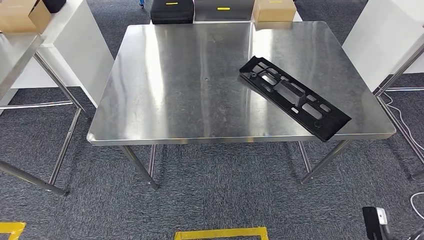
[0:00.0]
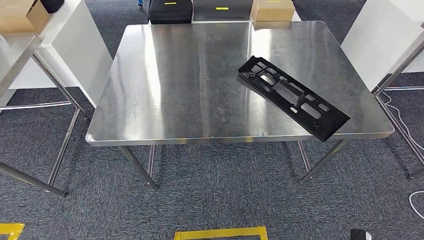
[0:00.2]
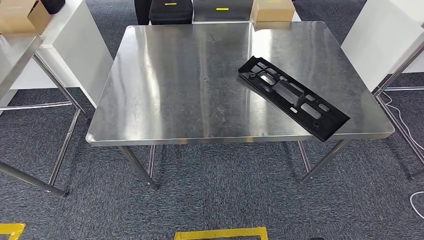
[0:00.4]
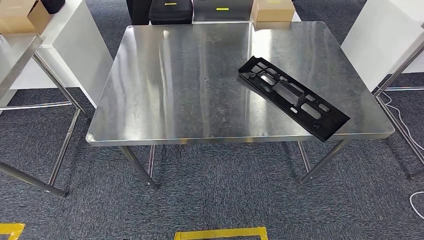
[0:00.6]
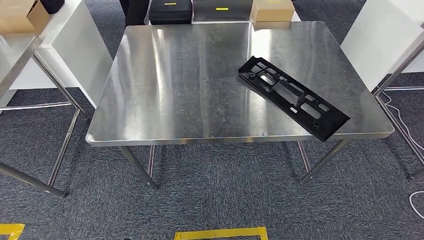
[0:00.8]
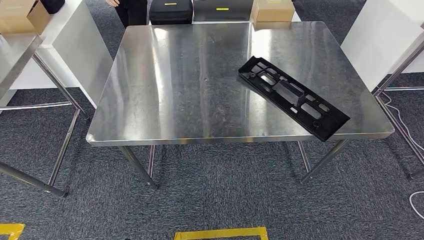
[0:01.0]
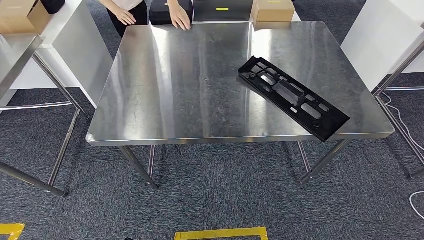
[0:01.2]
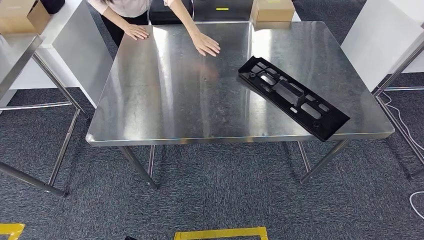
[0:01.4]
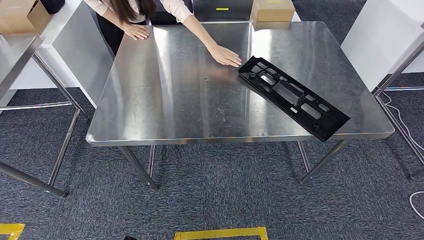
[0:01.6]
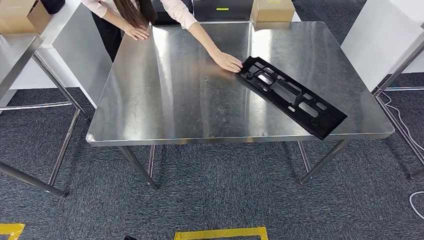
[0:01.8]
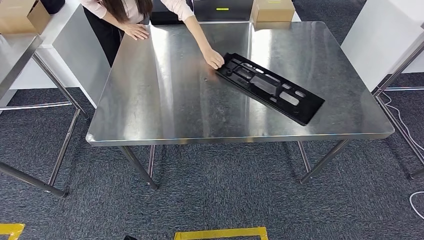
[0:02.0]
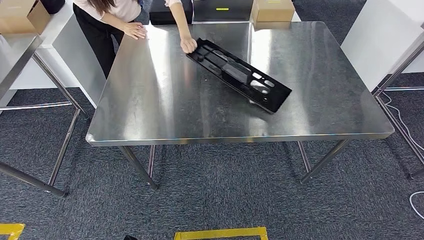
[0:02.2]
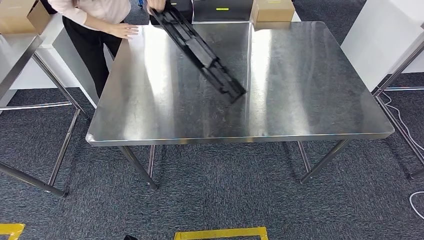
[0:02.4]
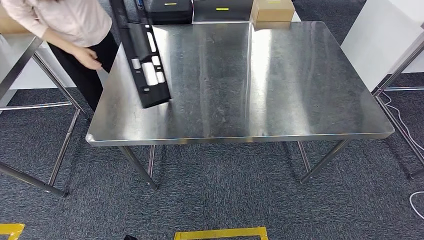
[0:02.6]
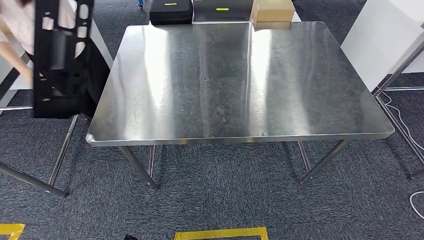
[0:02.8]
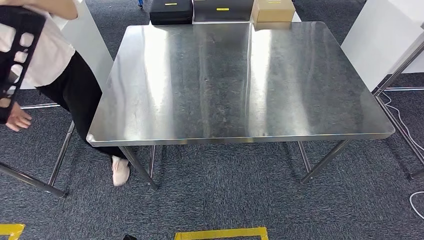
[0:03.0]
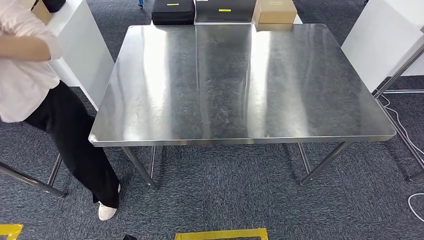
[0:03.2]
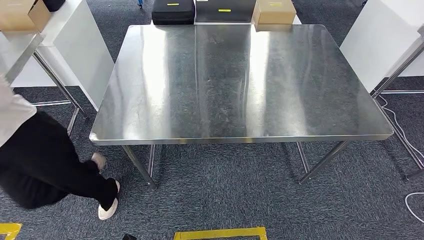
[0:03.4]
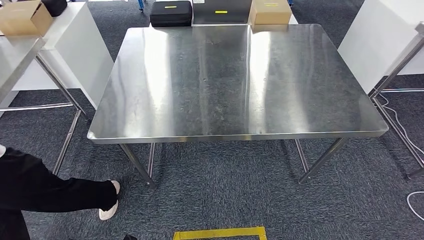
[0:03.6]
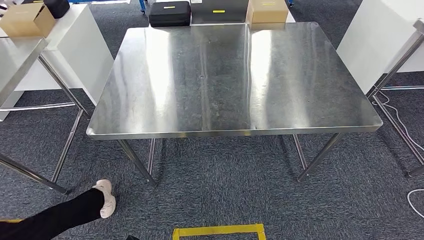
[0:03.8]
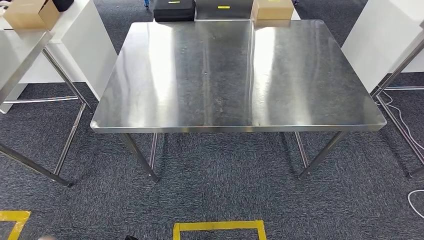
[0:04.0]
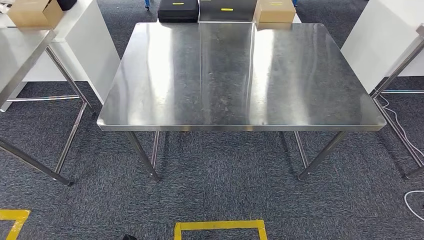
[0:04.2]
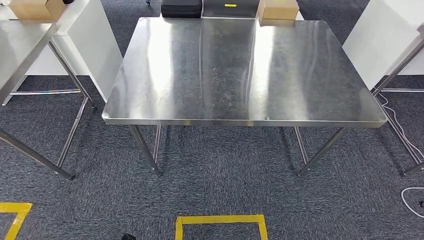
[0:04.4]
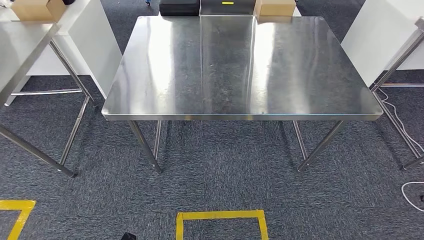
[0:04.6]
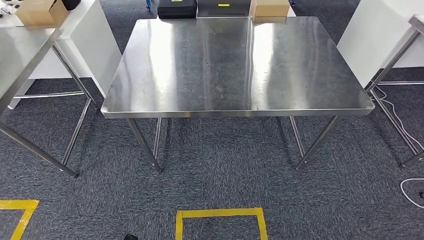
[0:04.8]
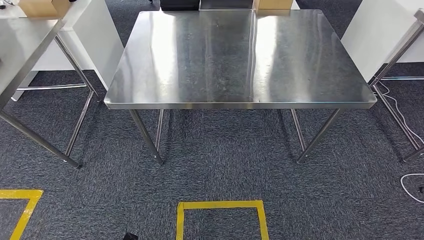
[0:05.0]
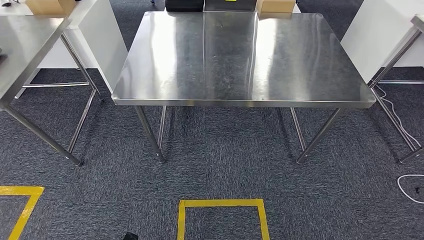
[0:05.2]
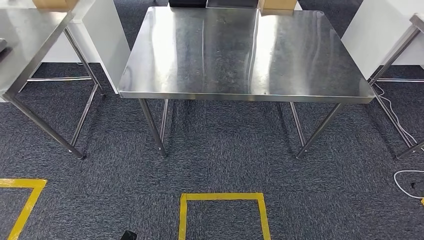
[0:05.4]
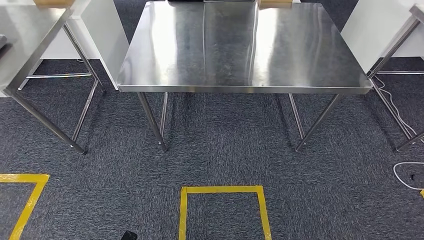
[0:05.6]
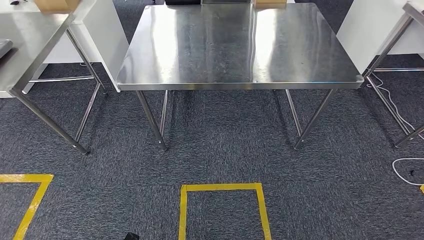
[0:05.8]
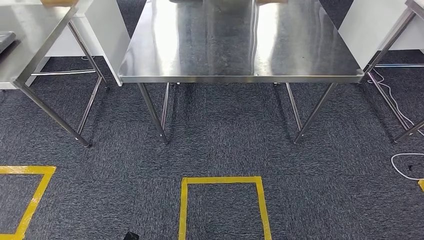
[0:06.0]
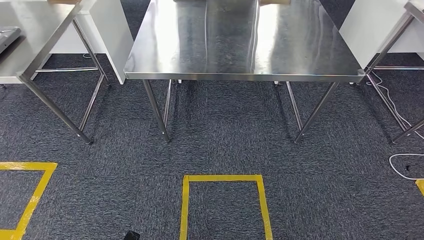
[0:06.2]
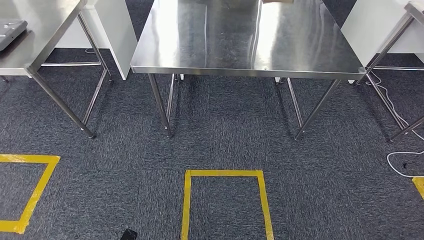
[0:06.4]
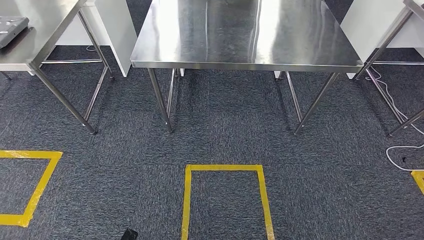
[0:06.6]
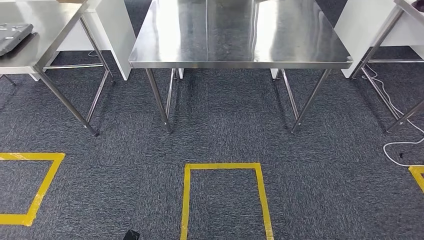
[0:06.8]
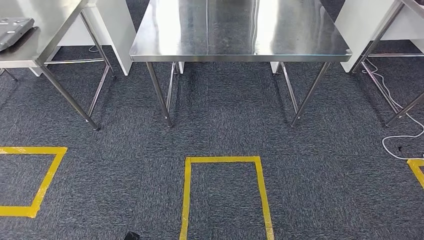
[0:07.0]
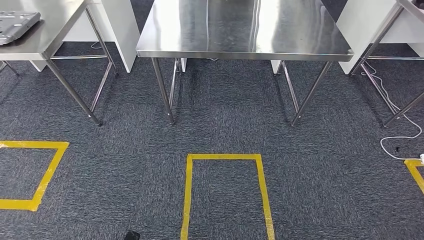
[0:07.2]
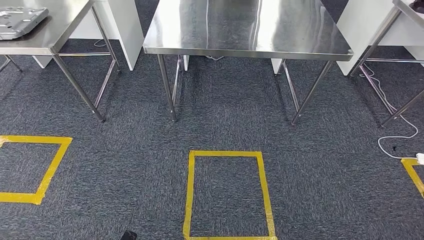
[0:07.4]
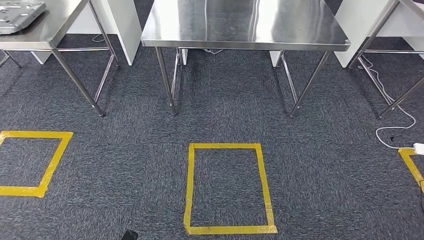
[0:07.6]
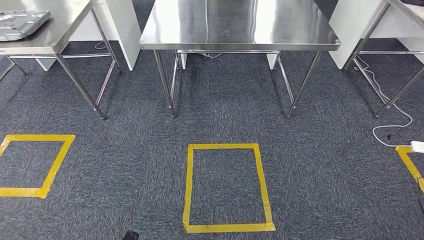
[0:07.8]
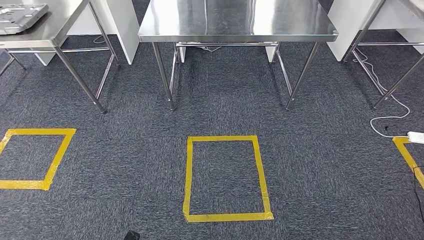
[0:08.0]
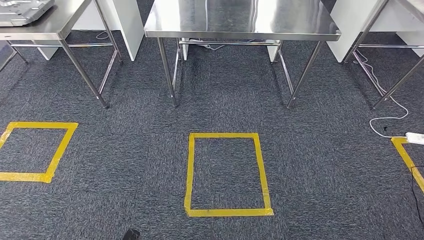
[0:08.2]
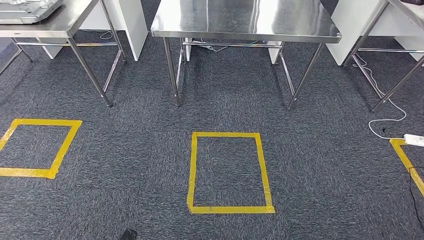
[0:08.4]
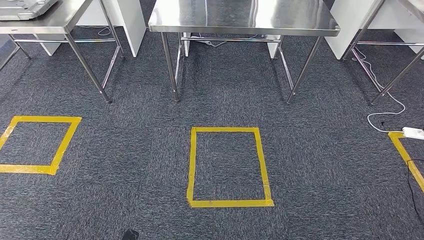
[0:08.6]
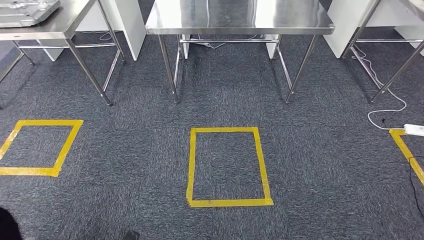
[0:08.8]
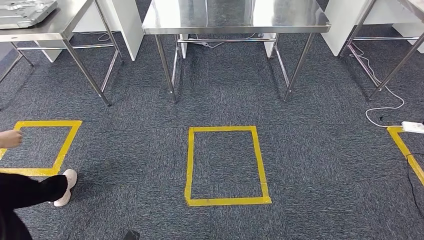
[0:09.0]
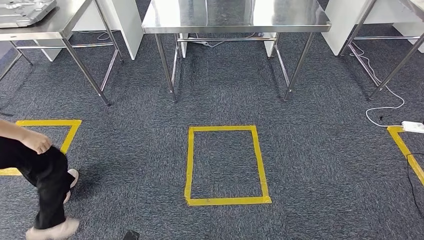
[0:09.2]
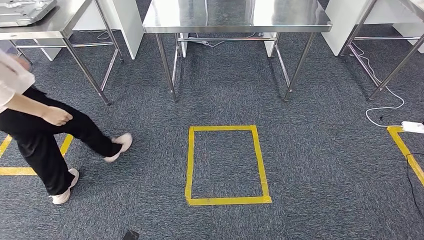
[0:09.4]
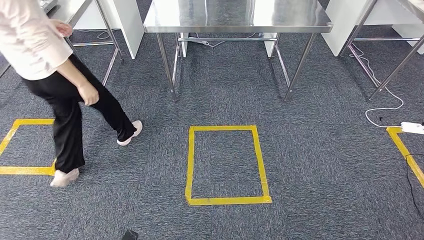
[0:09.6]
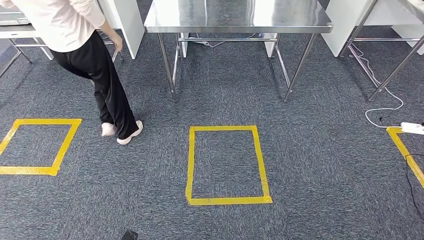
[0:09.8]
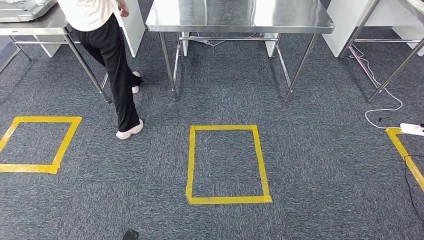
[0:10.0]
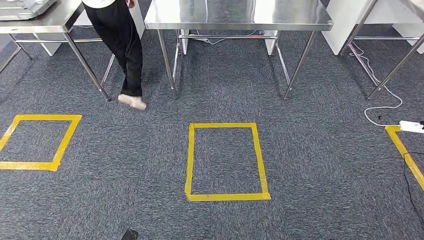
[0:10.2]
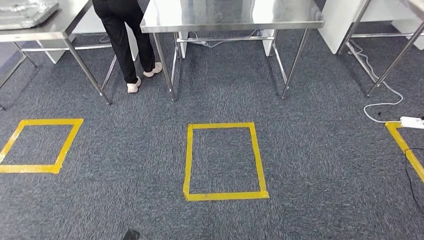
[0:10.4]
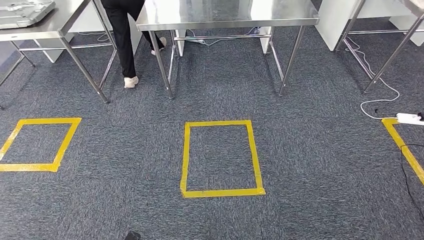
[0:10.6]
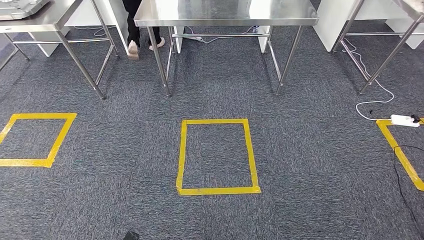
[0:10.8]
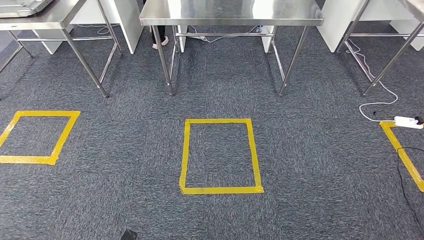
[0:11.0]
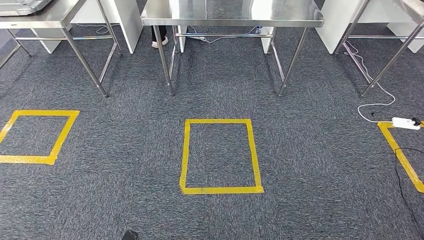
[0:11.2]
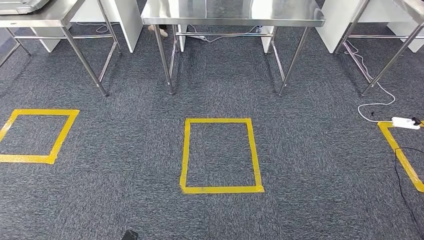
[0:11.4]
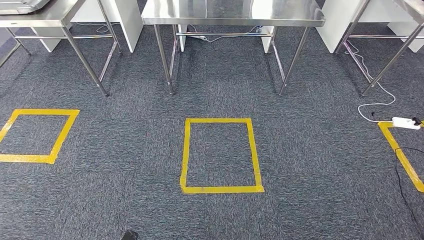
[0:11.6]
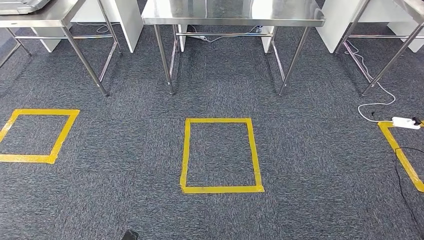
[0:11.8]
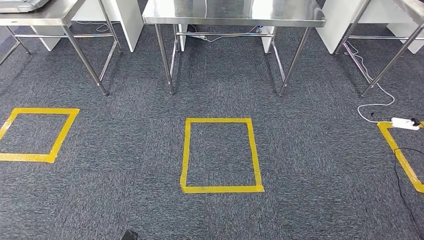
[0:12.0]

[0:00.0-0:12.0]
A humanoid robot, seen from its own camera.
0:00.0 to 0:01.6: The right hand moves to the left, downward and backward, about 25 cm.

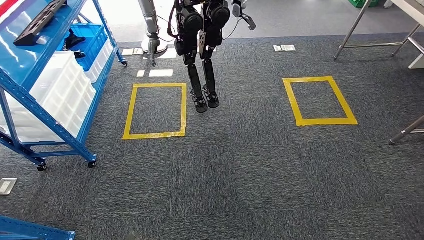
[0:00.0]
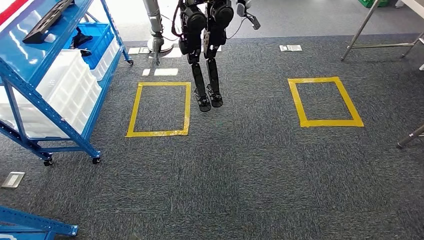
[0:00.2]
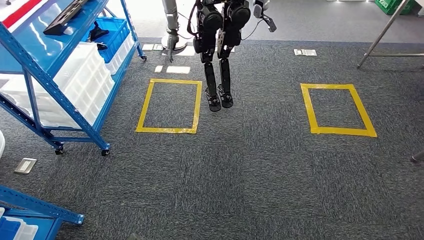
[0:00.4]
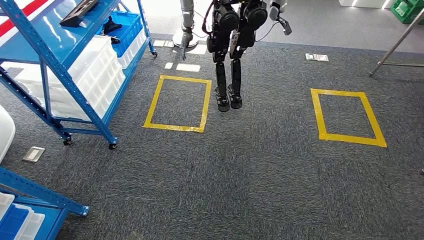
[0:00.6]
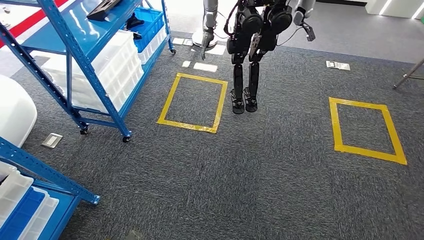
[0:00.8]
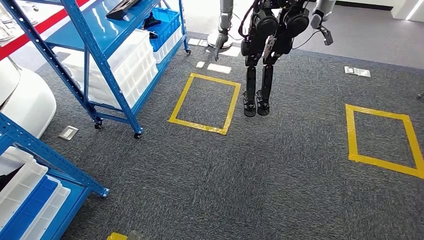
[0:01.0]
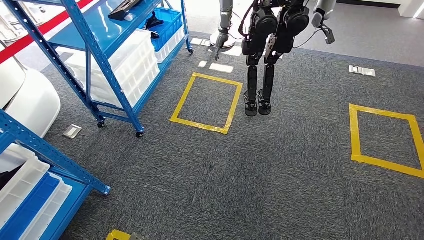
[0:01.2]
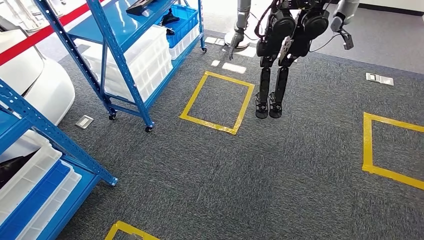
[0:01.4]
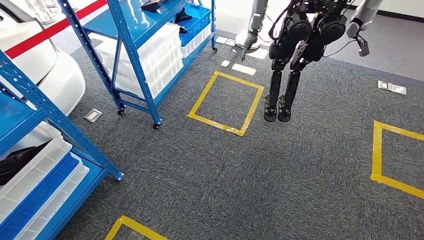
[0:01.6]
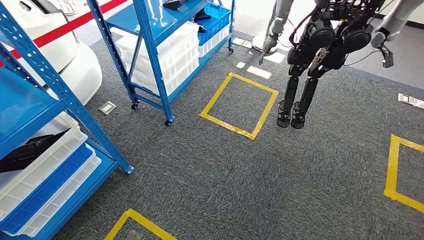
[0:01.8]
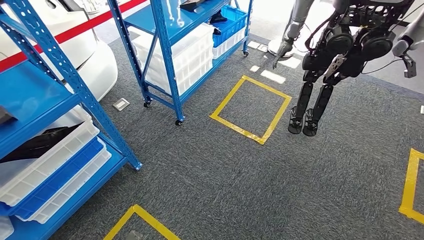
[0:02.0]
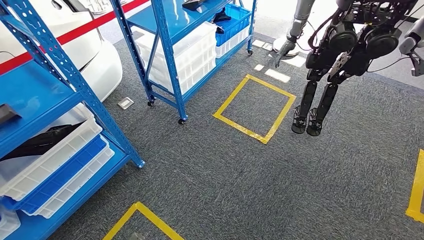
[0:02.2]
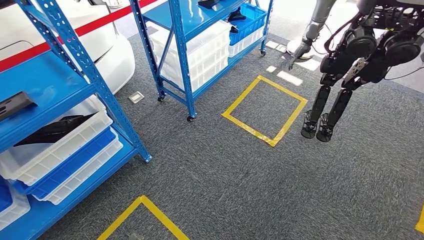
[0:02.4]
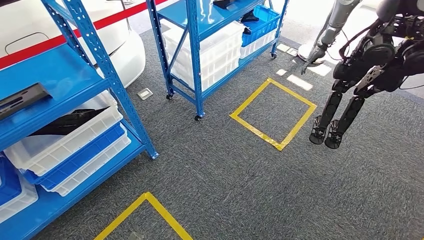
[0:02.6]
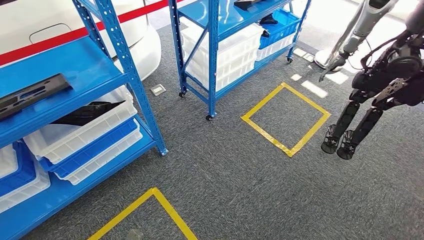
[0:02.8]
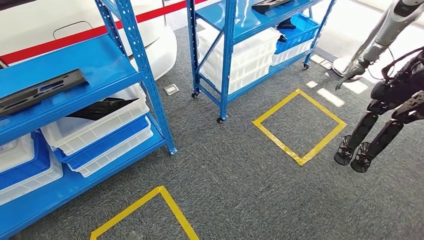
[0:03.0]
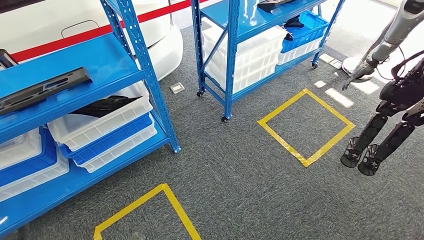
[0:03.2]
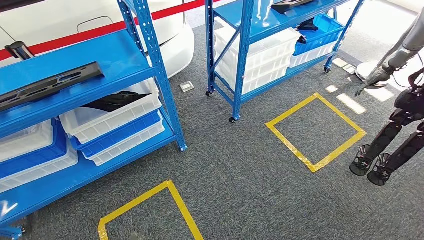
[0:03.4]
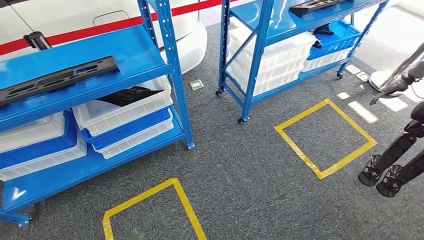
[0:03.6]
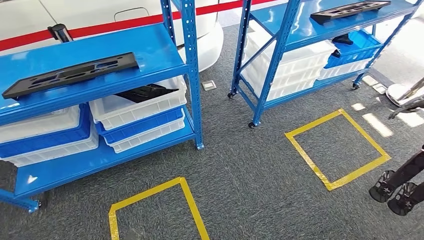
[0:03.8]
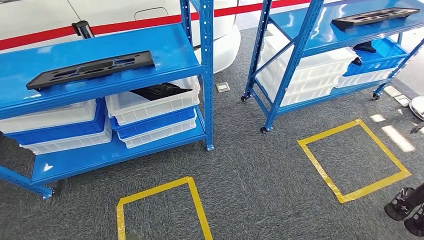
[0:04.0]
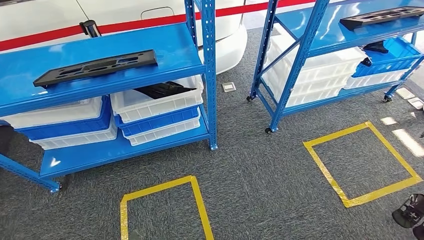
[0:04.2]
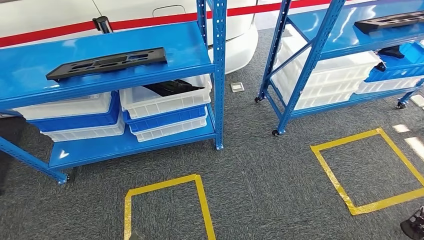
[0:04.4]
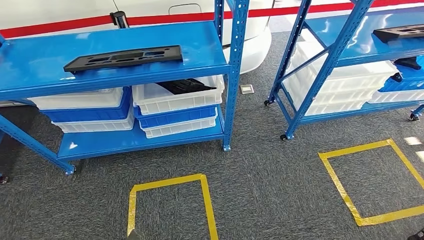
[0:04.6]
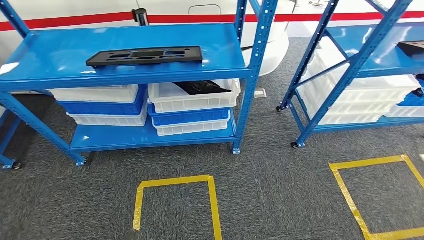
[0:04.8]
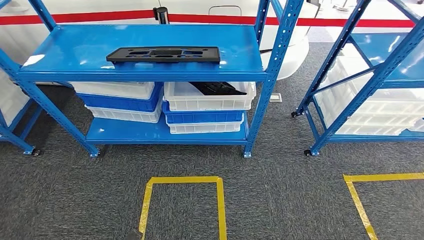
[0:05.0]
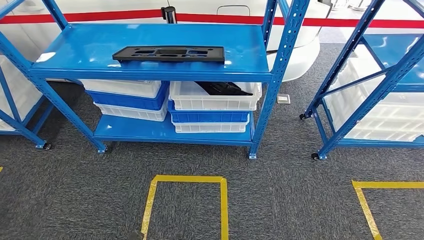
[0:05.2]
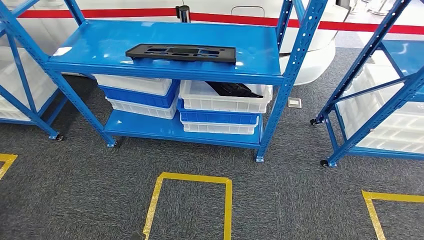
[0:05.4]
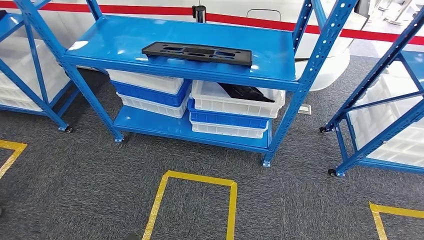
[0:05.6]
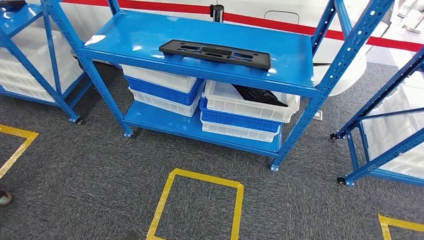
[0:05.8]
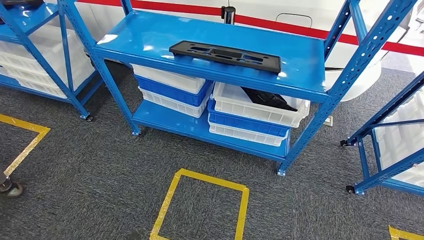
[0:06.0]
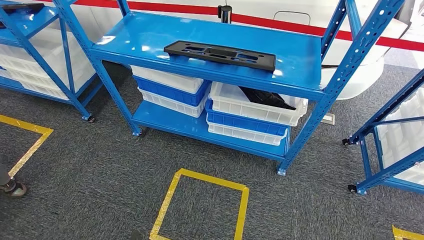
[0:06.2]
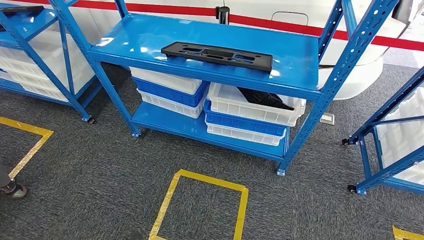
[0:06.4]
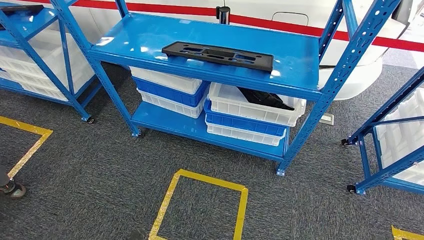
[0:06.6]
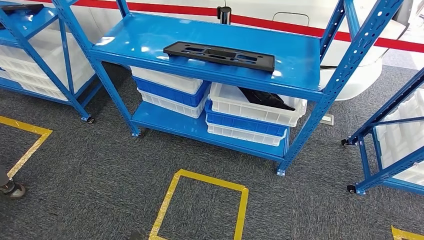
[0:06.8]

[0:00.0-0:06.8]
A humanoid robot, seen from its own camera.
Step, 0:00.0 to 0:06.8: Move to the initial position of the shelf.
